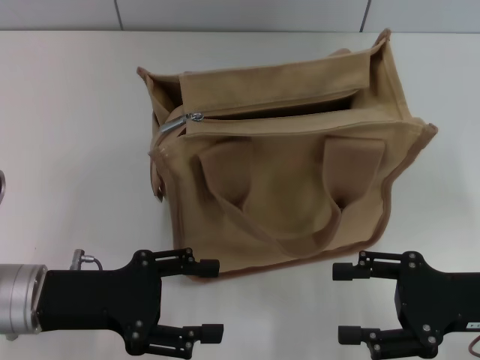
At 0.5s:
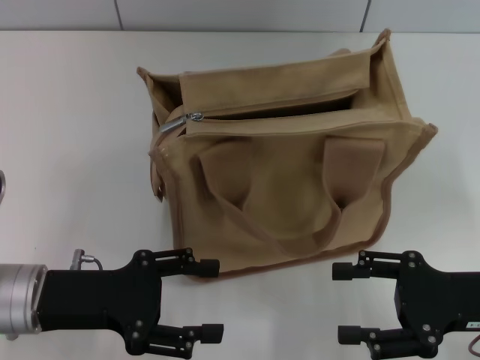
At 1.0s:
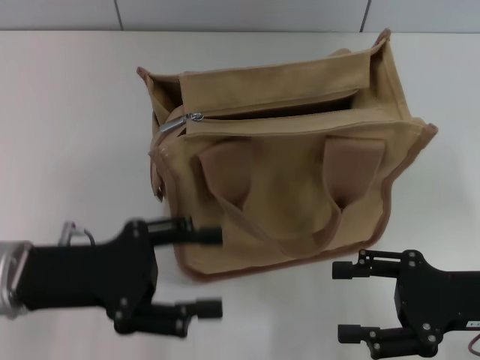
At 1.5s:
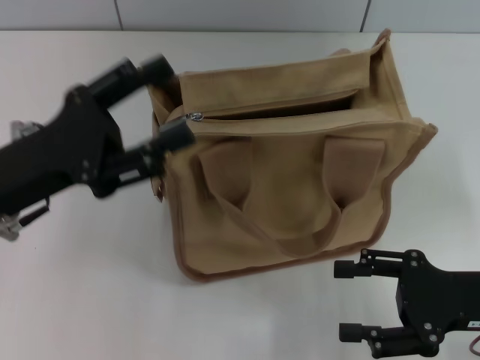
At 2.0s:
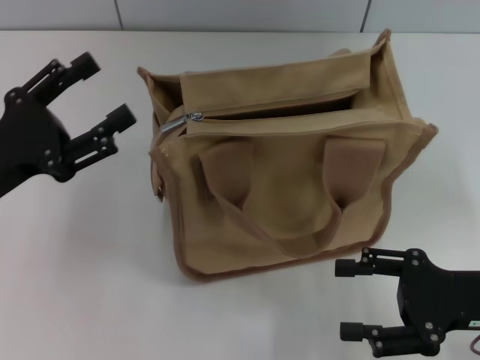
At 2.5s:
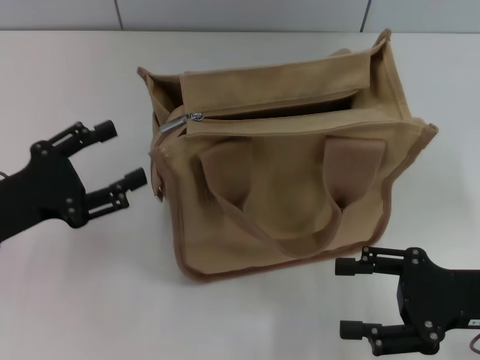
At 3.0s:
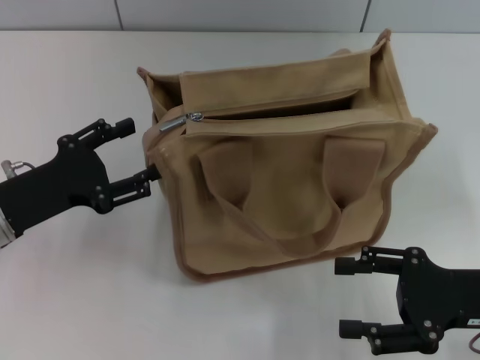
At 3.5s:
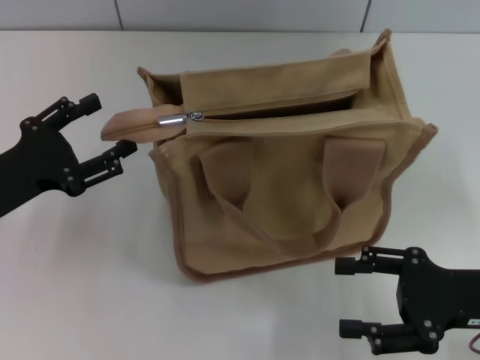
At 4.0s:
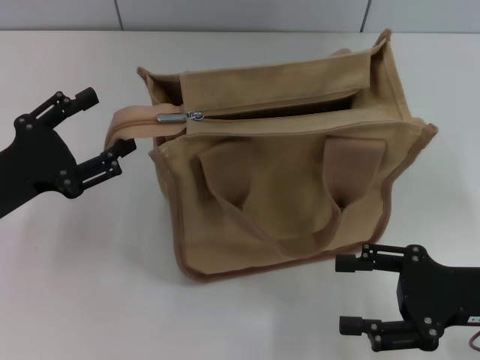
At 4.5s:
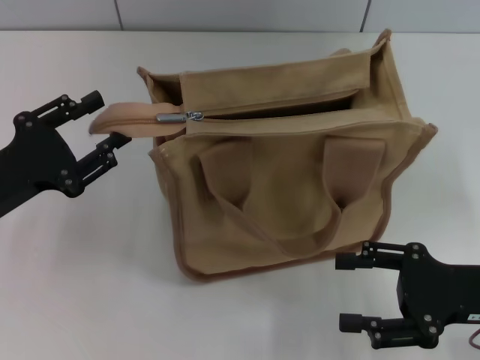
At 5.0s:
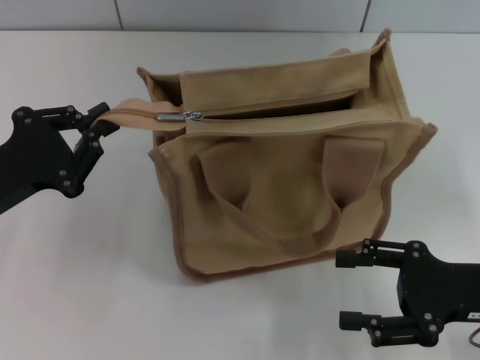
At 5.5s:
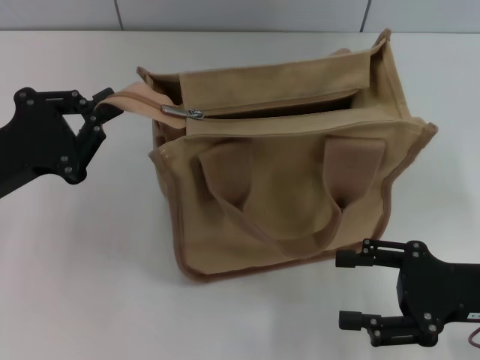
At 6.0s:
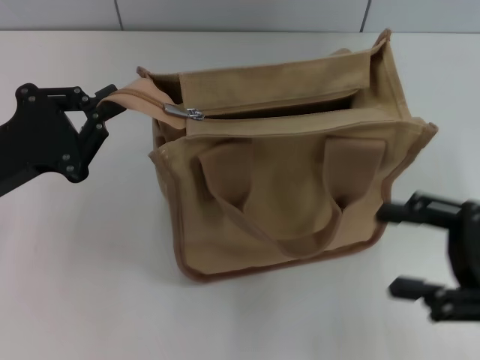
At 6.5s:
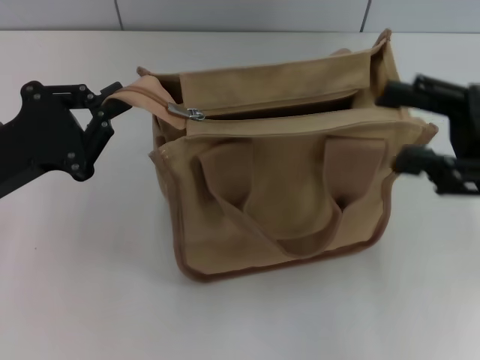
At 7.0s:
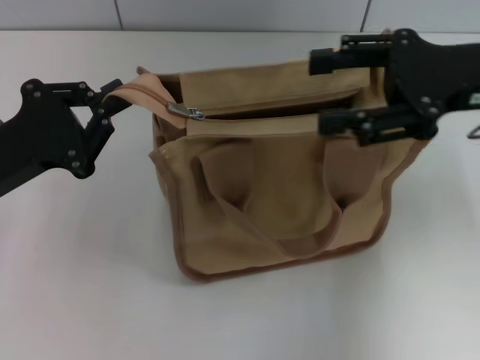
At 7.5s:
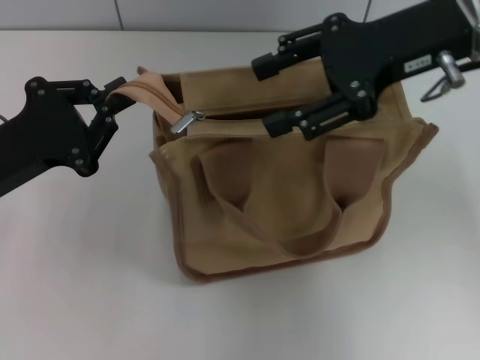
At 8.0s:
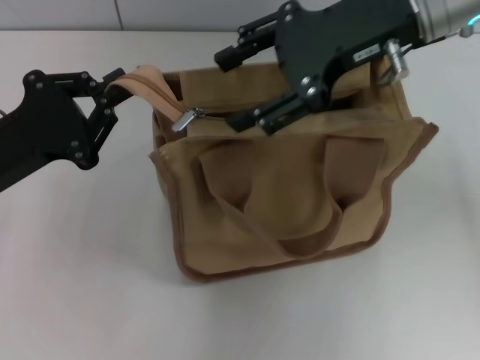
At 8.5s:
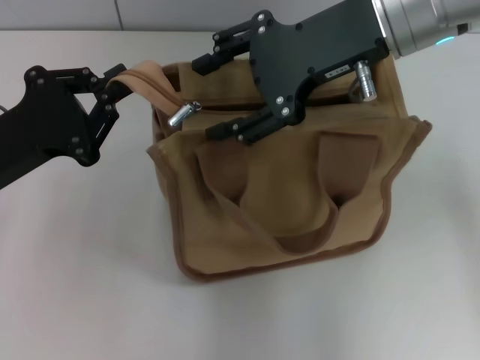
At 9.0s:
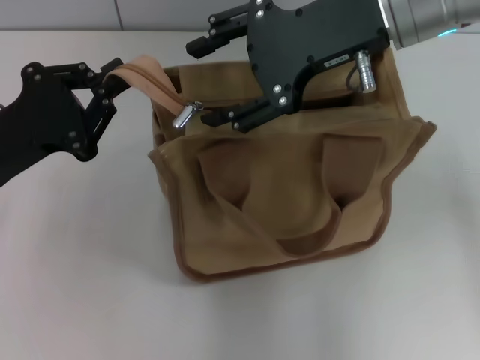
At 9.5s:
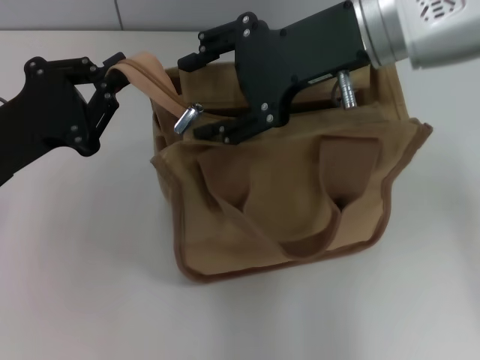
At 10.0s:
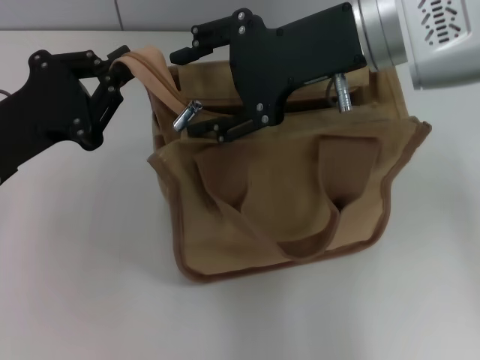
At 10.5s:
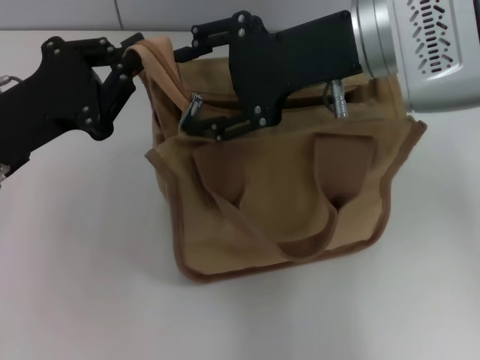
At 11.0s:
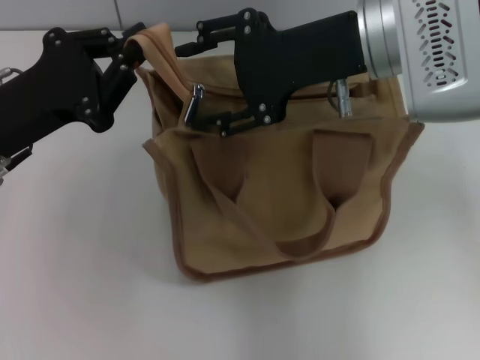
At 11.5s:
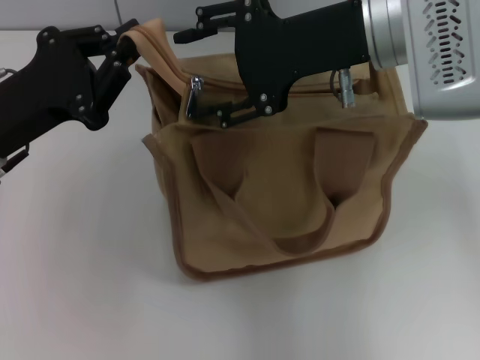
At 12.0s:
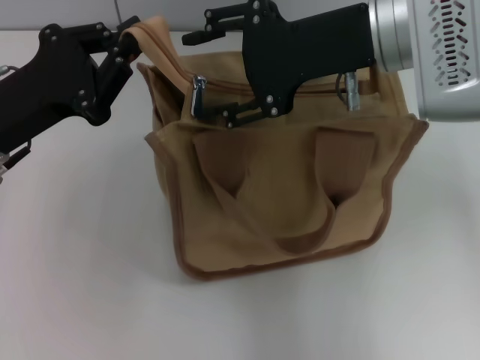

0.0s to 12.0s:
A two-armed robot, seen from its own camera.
0.0s to 2.0s: The left gripper moves some 5 cm.
2.0s to 4.0s: The grippers make only small movements.
4.0s to 6.0s: The left gripper closes.
6.0s to 8.0s: The right gripper goes approximately 25 cm forward, upward and to the left.
10.0s to 12.0s: The grippers make only small movements.

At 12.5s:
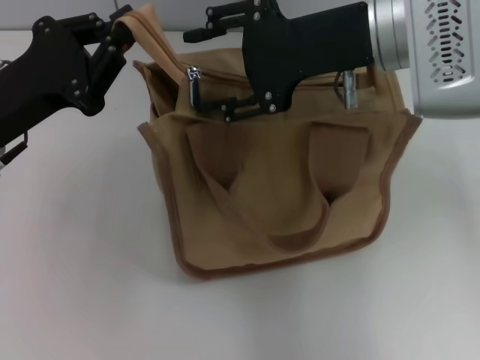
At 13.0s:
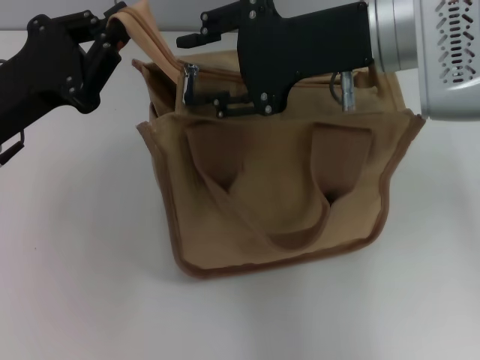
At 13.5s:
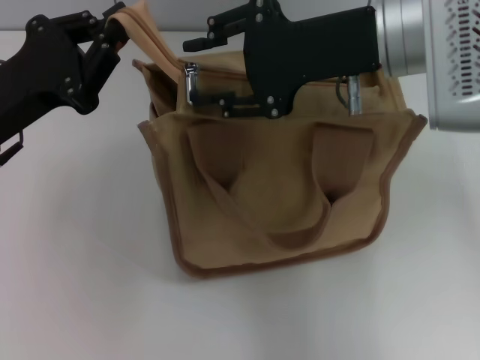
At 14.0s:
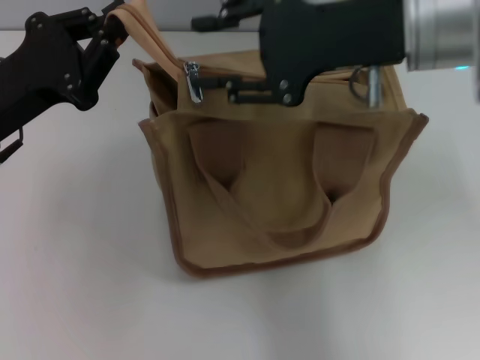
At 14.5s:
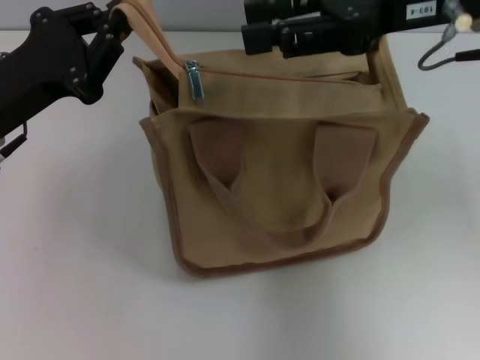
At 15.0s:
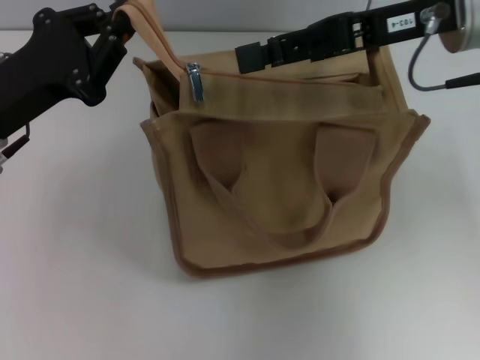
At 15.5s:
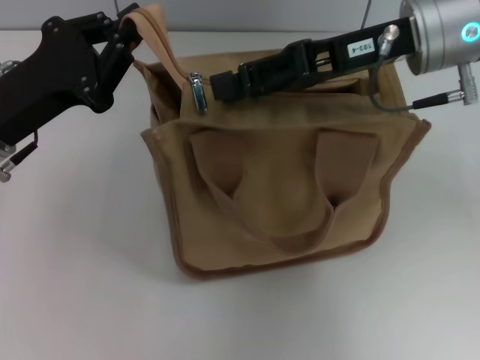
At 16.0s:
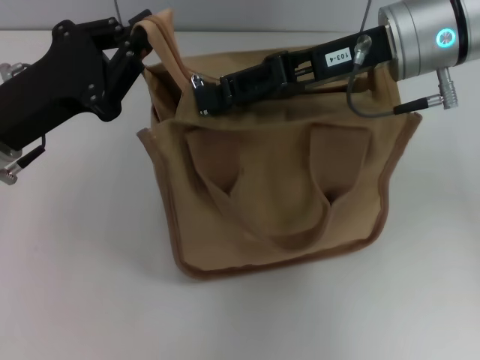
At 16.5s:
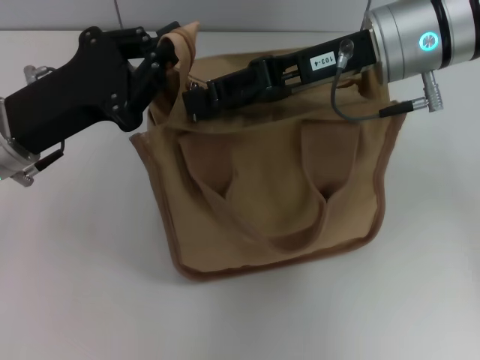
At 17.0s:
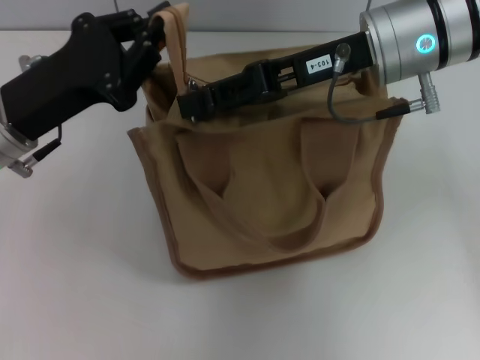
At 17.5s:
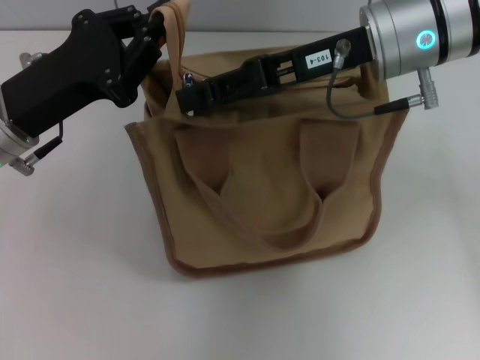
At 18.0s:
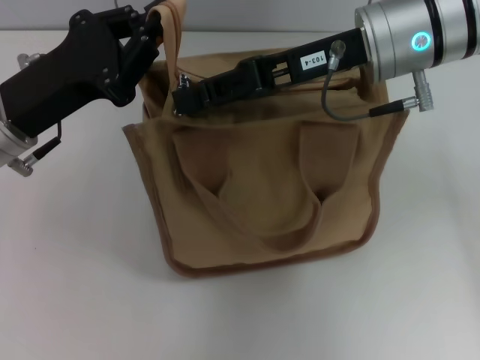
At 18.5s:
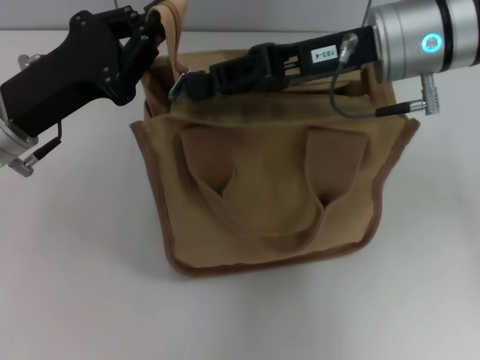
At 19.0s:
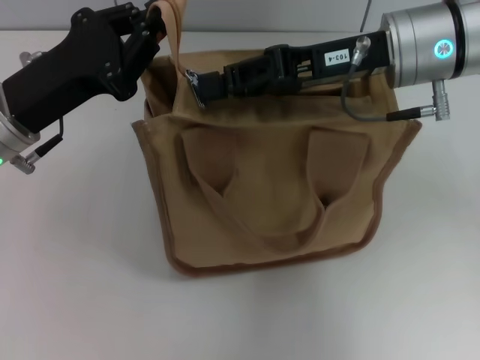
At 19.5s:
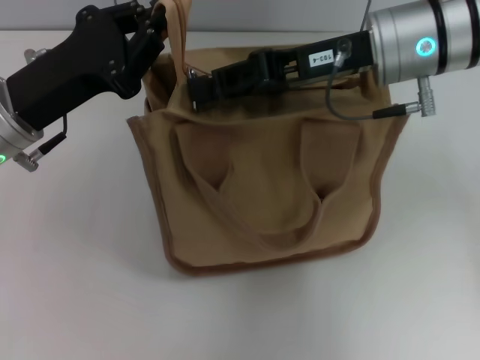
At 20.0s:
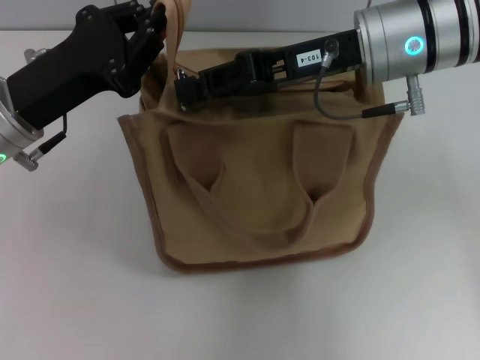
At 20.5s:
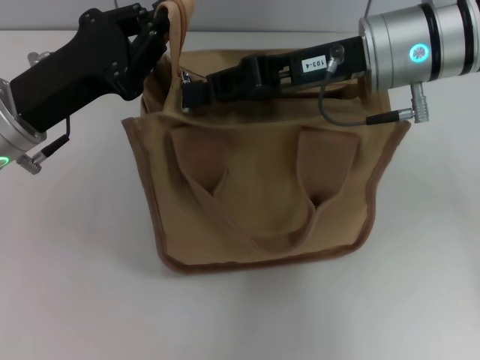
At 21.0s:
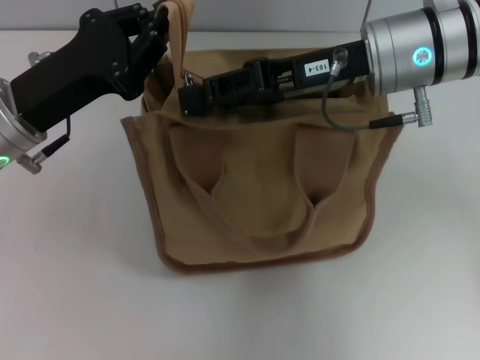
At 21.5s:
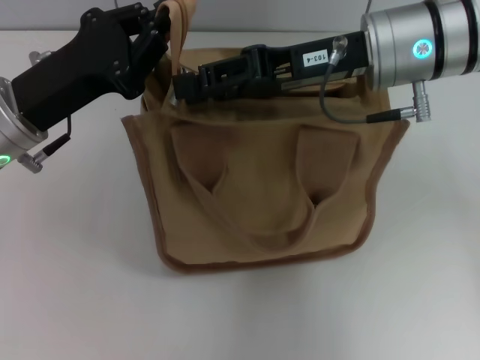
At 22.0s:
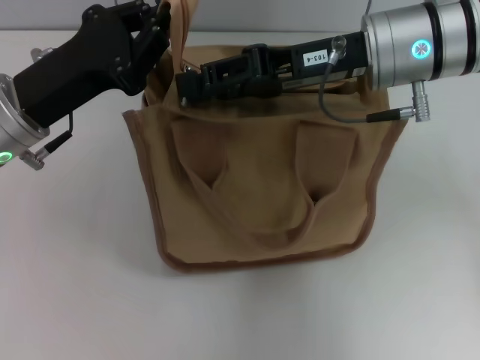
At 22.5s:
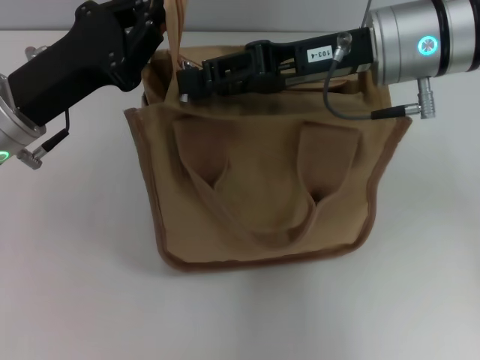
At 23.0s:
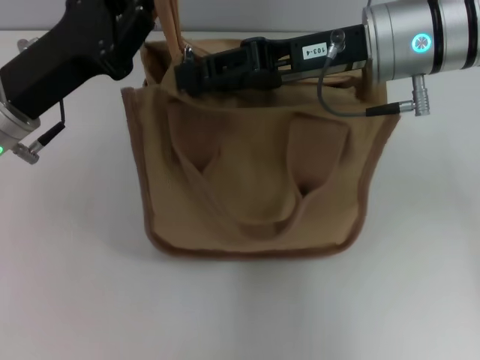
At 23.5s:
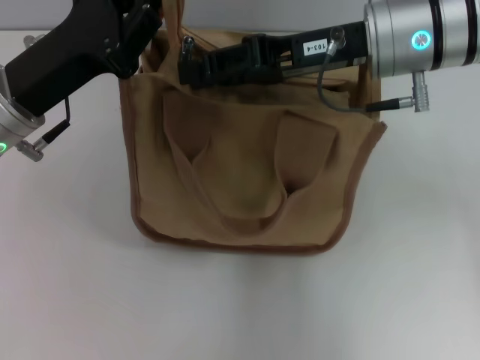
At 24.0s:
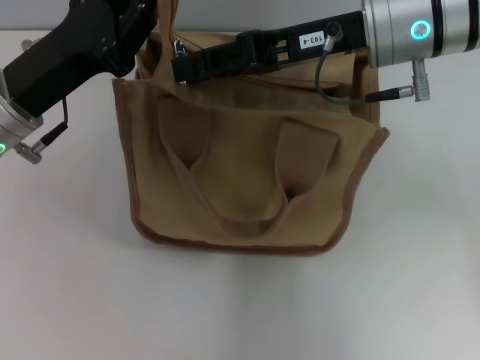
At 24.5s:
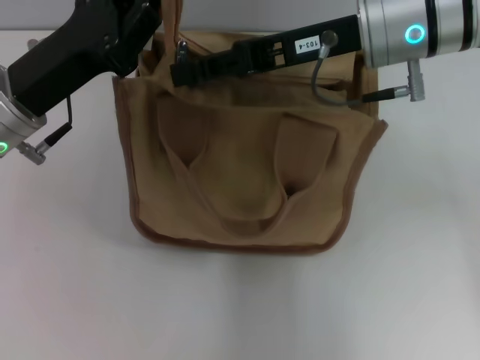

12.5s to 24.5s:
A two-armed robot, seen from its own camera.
12.5s to 14.5s: The right gripper heads to the right, covering some 5 cm.
14.5s to 16.5s: The right gripper shifts some 10 cm downward and to the left.
16.5s to 18.5s: There are only small adjustments of the grippers.
18.5s to 22.5s: Neither gripper changes place.

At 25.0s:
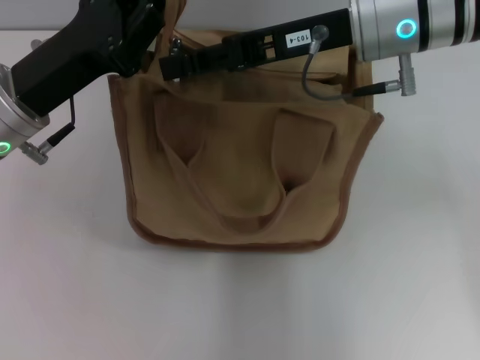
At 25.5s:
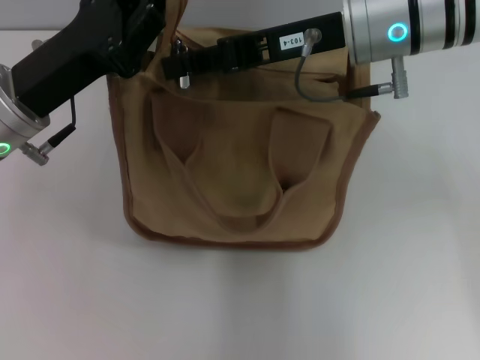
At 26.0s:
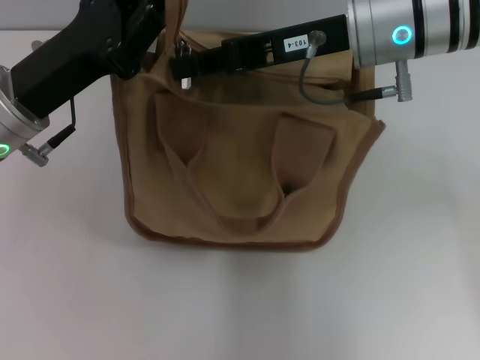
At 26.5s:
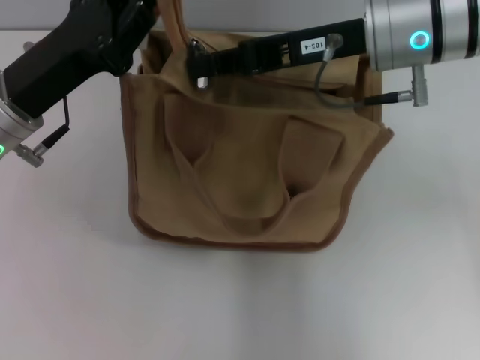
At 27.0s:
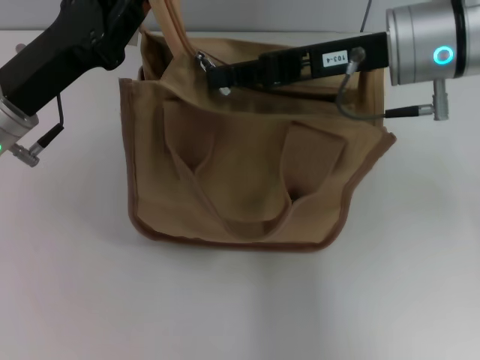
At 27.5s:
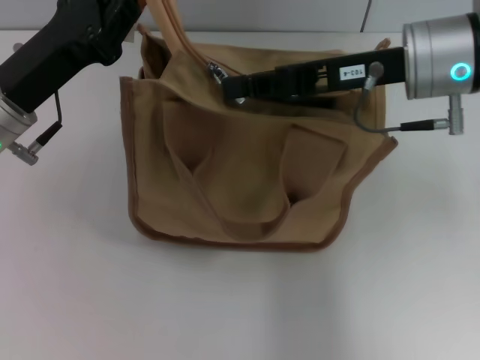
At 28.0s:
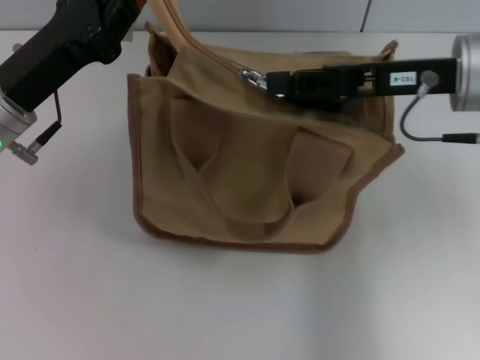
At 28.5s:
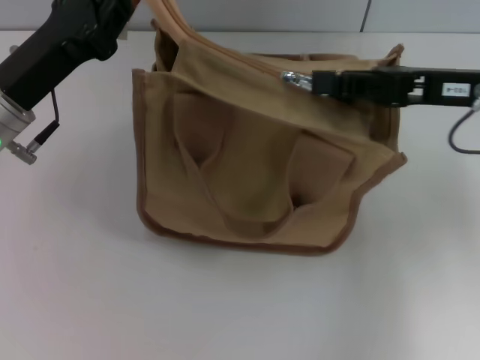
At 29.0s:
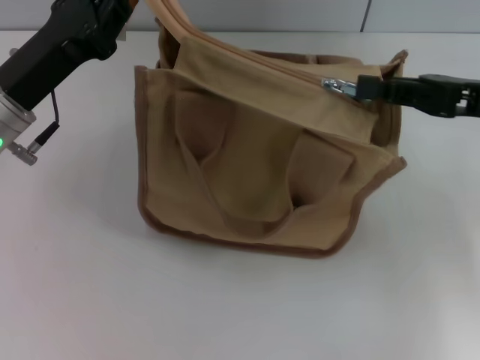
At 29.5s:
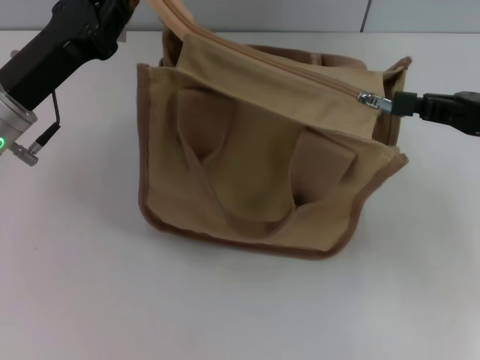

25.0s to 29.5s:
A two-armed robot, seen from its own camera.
25.0s to 27.0s: The right gripper closes its fingers.
27.0s to 29.5s: The right gripper heads to the right and backward, covering some 15 cm.
